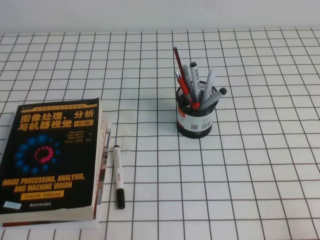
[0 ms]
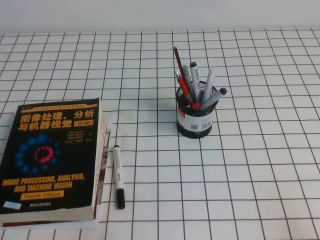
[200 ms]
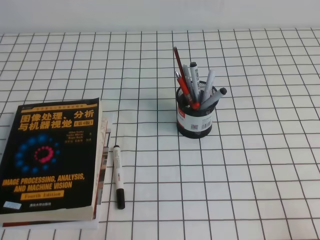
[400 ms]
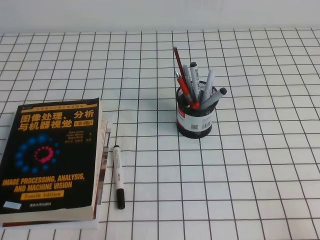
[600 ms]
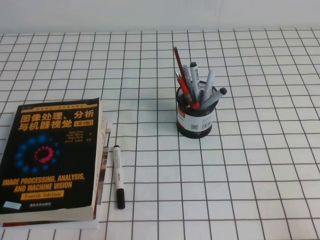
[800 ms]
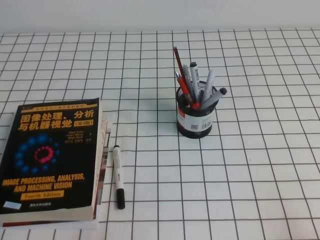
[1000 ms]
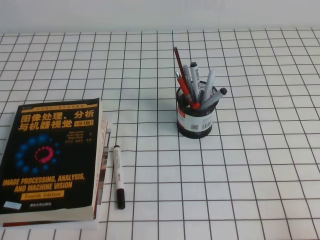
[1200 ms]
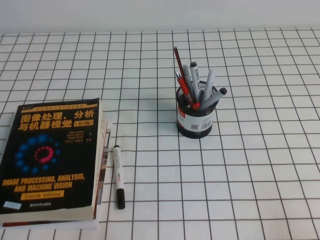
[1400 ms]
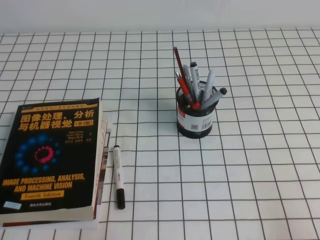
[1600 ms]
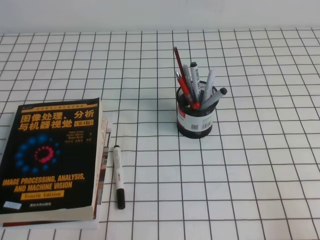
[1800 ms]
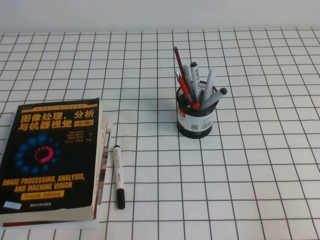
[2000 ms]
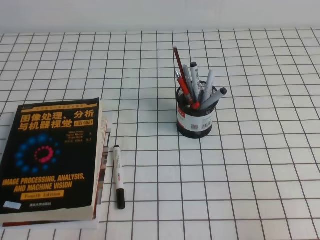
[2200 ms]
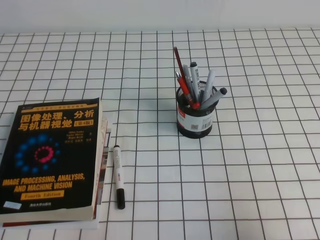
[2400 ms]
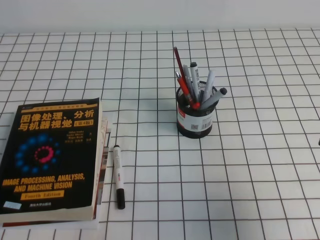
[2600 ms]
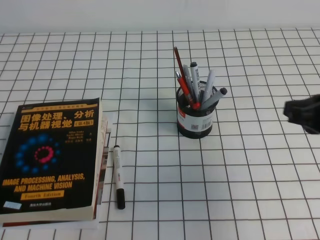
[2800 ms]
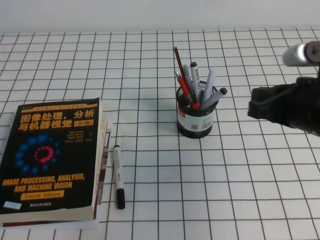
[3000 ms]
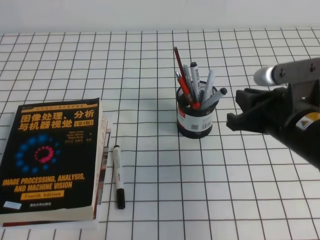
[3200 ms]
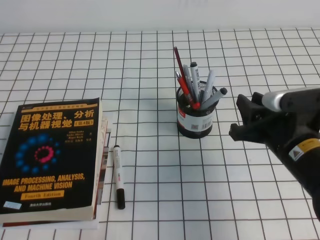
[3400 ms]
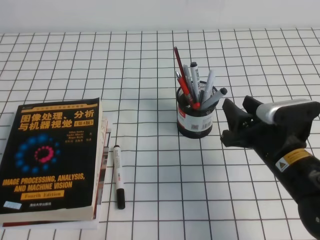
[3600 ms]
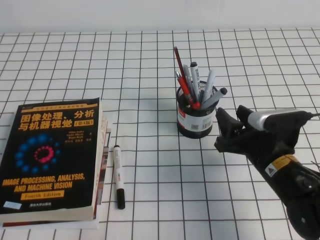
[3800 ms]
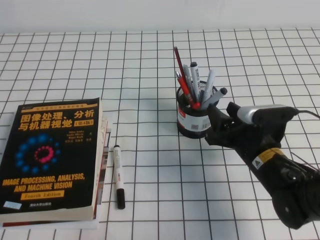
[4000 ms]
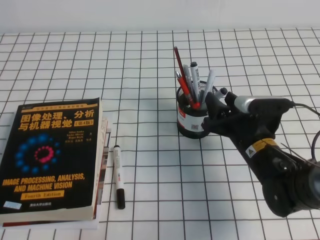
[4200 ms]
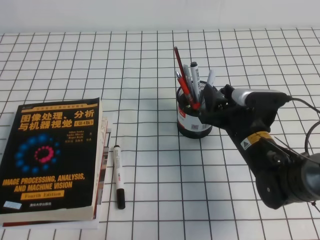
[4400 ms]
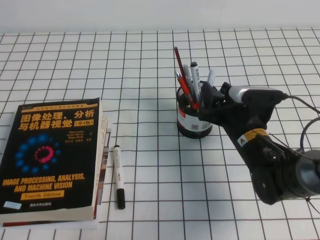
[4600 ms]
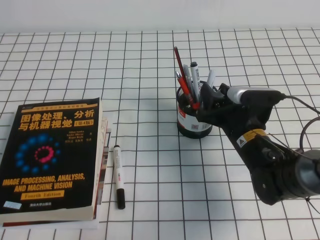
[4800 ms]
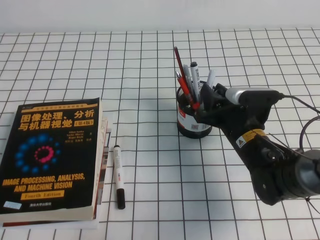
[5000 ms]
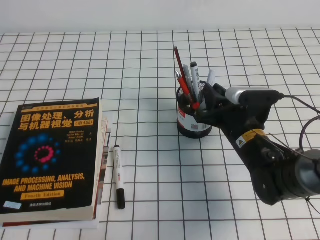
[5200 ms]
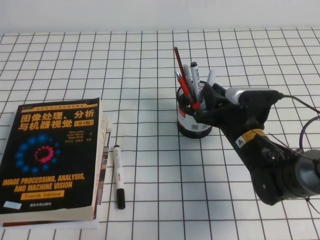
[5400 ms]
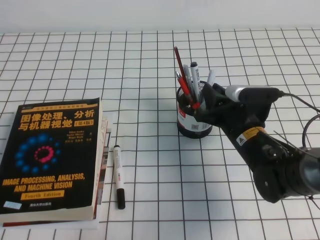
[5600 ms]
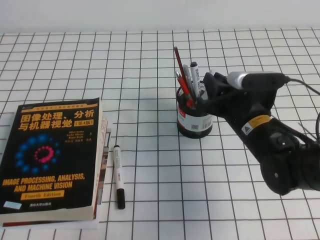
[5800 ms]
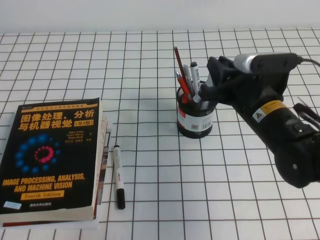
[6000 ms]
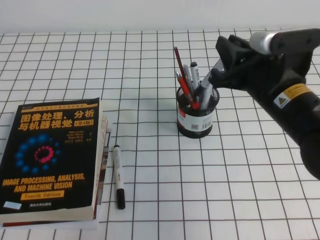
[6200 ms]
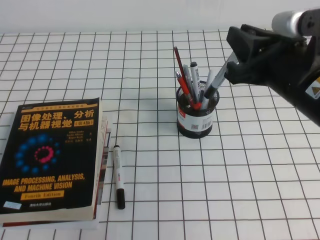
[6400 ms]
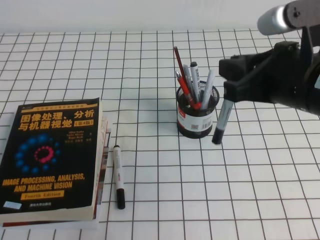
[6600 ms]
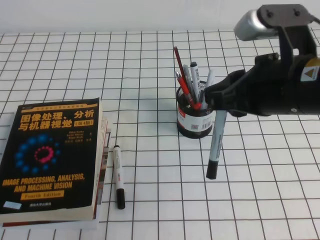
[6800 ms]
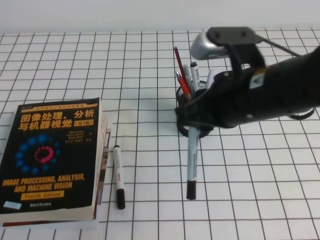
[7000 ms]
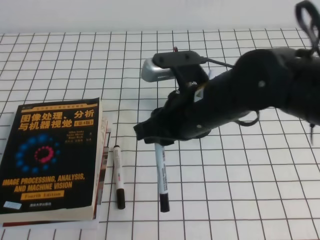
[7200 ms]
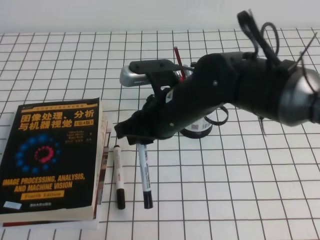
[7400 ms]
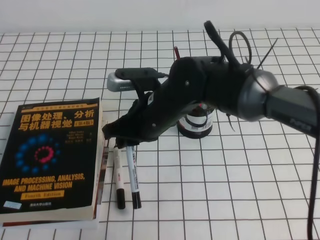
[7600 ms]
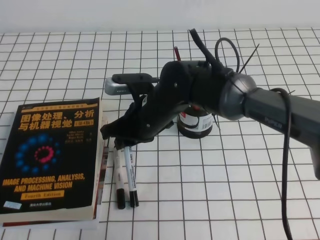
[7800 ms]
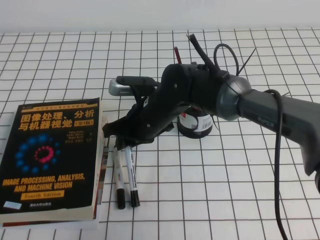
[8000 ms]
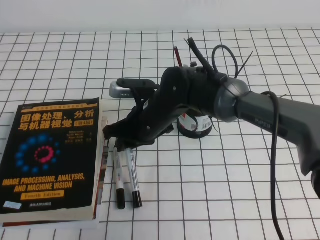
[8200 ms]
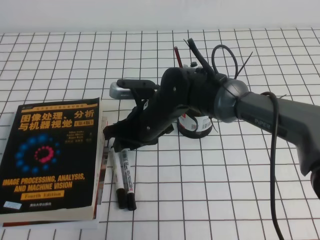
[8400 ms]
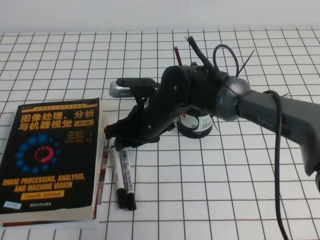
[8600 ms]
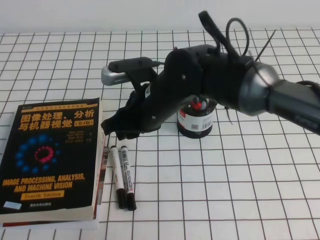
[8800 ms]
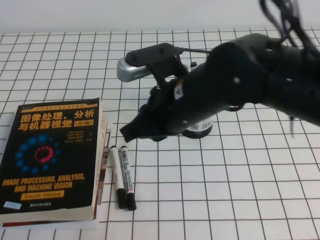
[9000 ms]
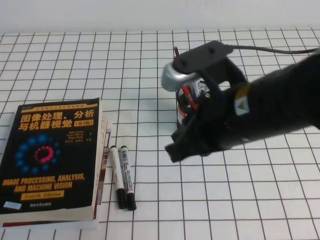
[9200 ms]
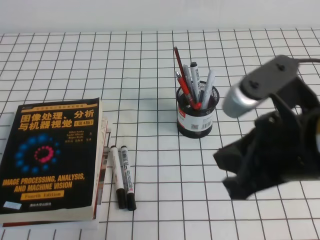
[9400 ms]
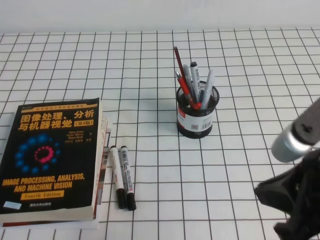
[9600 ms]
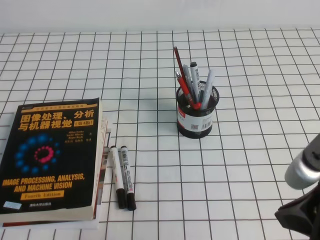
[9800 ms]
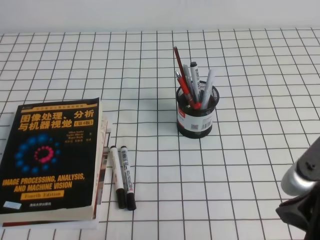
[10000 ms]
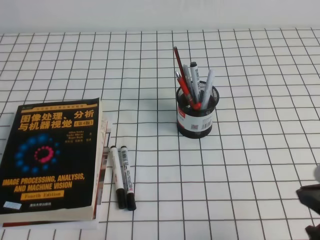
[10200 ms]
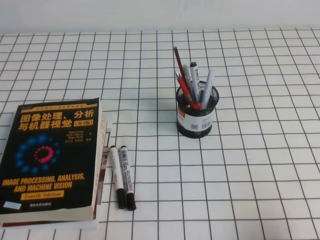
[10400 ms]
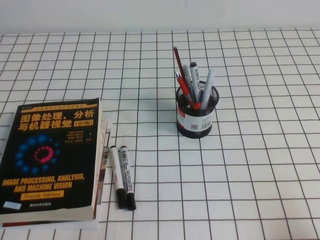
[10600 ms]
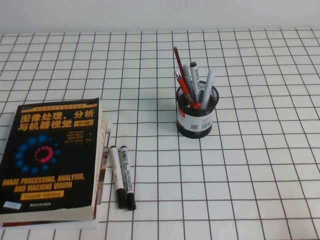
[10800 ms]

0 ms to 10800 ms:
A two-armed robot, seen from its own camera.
1600 ms to 3000 ms: The right gripper is displaced forward, to the left and upward by about 25 cm.
3000 ms to 4600 ms: The right gripper moves downward, to the left and forward, approximately 15 cm, and opens its fingers.
4600 ms to 6200 ms: The right gripper is displaced upward by approximately 10 cm, and closes its fingers.
6200 ms to 7800 ms: The right gripper heads to the left, covering roughly 15 cm.
7800 ms to 9200 ms: The right gripper heads backward, upward and to the right, covering some 20 cm, and opens and closes again.
9200 ms to 10800 ms: The right gripper goes roughly 30 cm to the right, backward and downward.

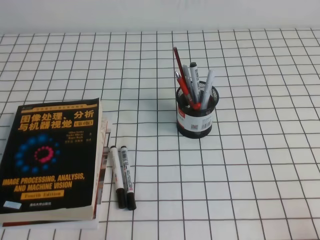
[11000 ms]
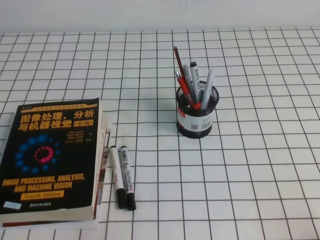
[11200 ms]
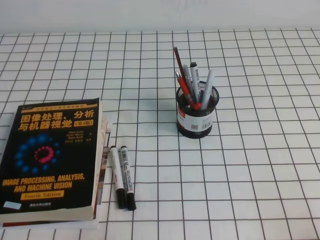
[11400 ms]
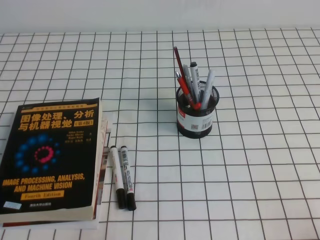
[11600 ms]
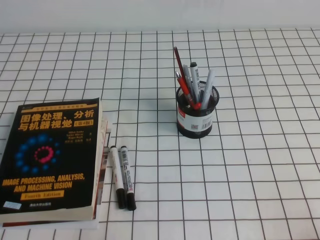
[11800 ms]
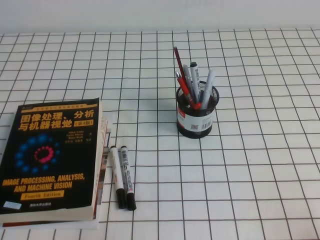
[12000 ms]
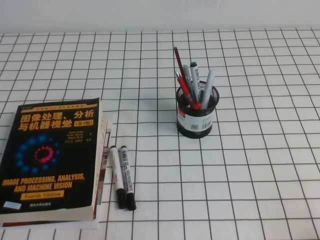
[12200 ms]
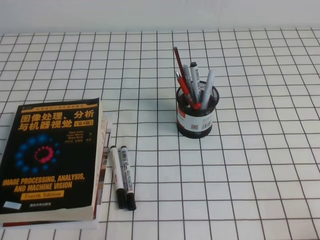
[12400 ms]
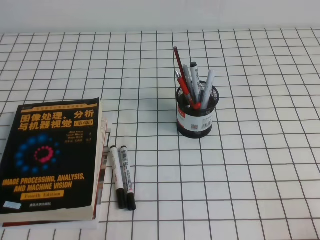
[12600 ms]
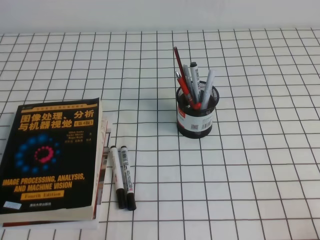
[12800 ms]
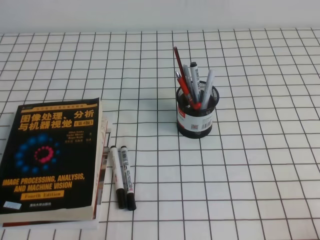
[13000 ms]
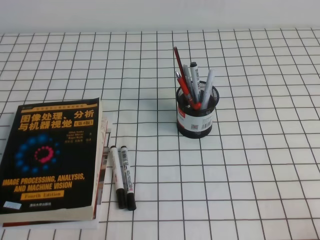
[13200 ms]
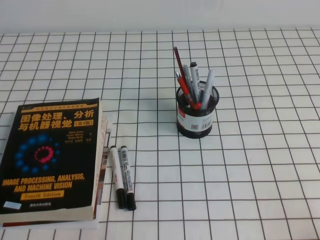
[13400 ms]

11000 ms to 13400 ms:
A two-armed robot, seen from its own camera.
12200 ms to 13400 ms: Both grippers stay put.
